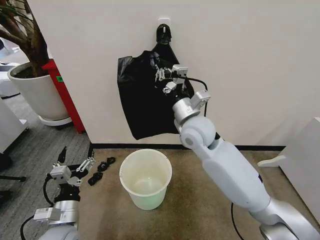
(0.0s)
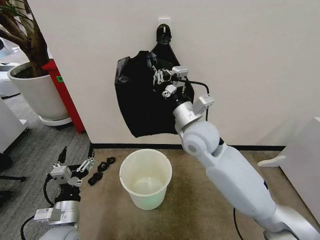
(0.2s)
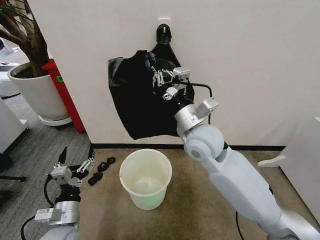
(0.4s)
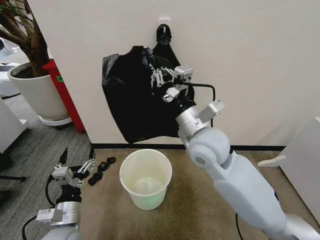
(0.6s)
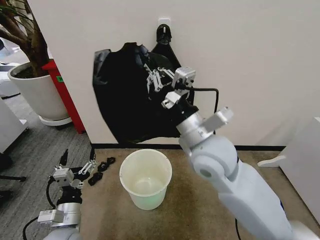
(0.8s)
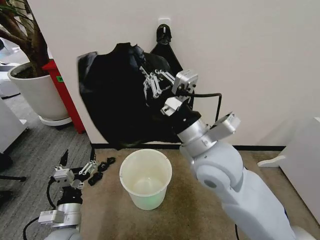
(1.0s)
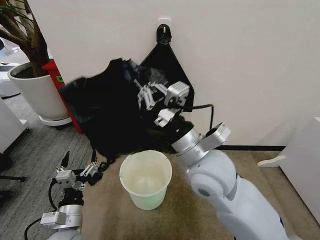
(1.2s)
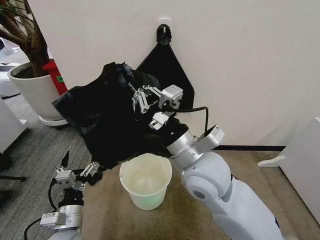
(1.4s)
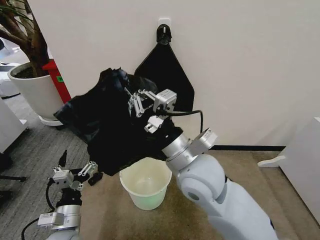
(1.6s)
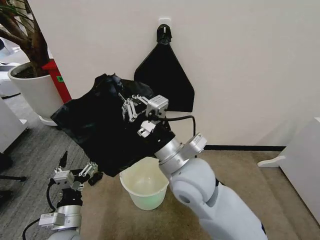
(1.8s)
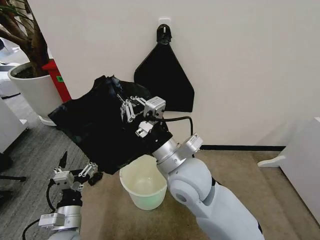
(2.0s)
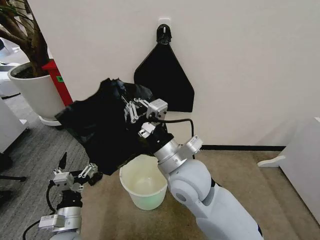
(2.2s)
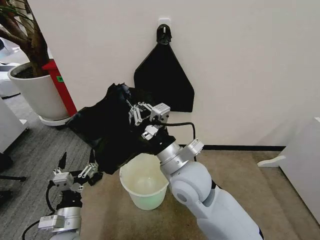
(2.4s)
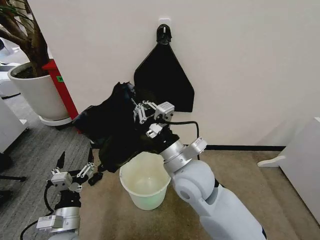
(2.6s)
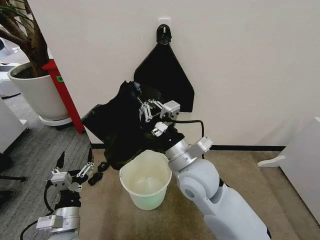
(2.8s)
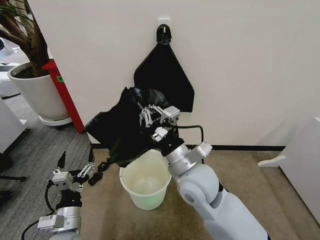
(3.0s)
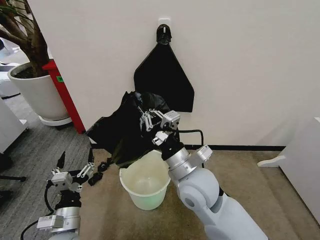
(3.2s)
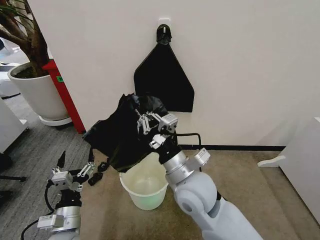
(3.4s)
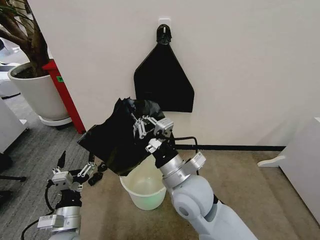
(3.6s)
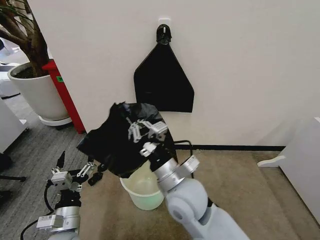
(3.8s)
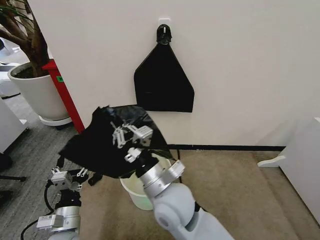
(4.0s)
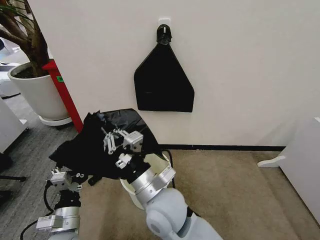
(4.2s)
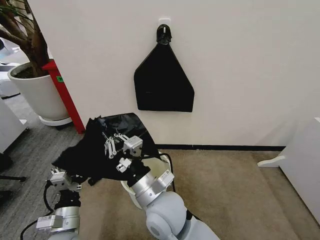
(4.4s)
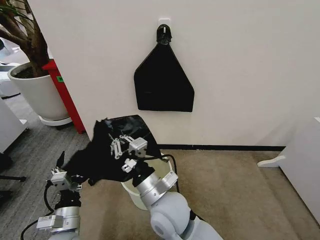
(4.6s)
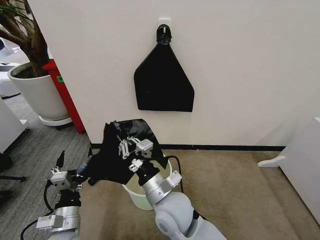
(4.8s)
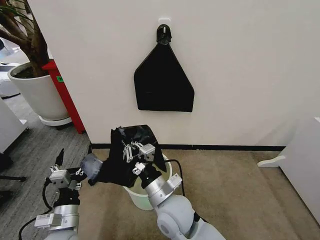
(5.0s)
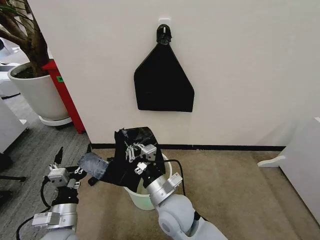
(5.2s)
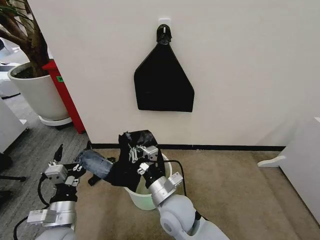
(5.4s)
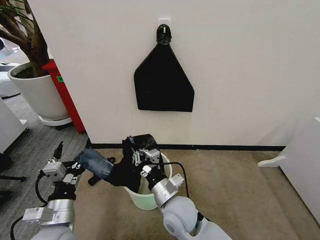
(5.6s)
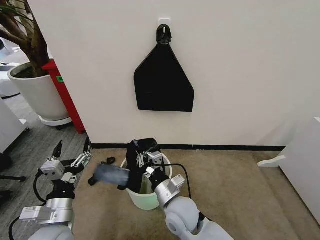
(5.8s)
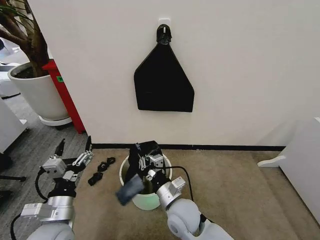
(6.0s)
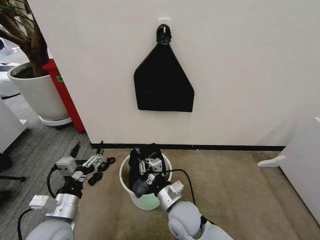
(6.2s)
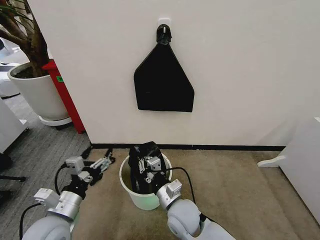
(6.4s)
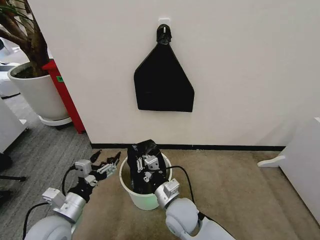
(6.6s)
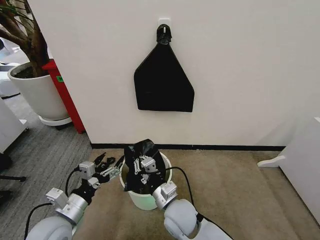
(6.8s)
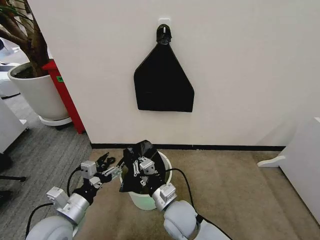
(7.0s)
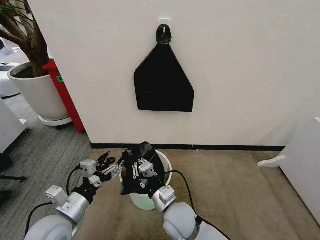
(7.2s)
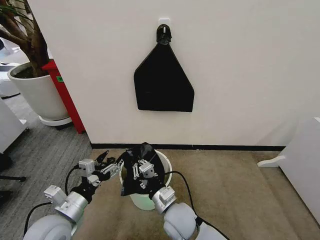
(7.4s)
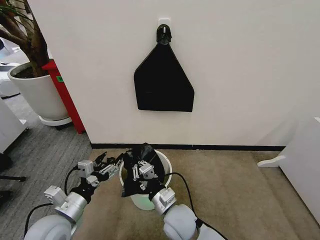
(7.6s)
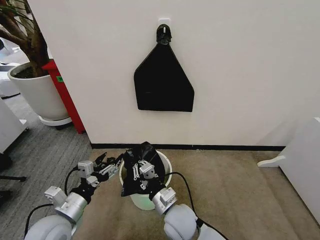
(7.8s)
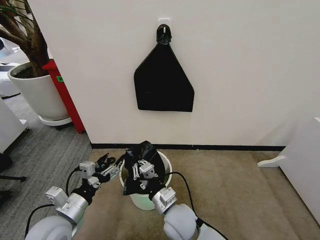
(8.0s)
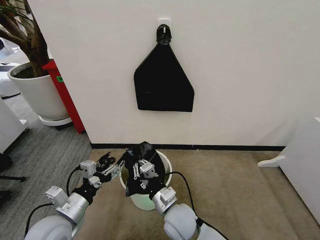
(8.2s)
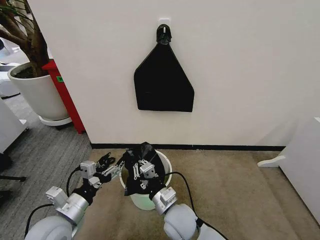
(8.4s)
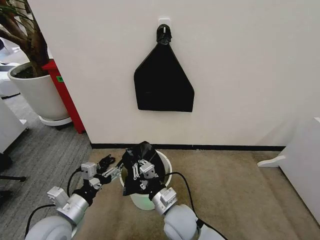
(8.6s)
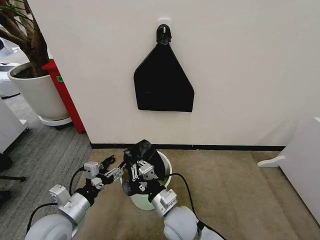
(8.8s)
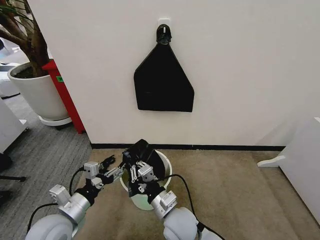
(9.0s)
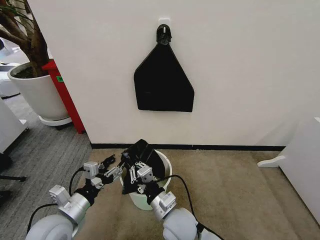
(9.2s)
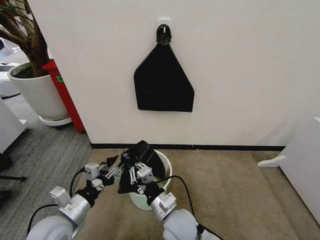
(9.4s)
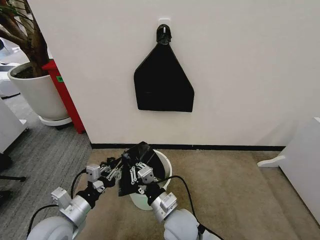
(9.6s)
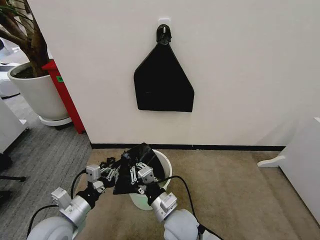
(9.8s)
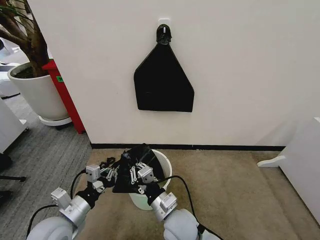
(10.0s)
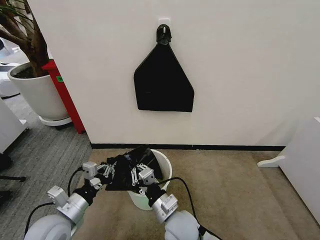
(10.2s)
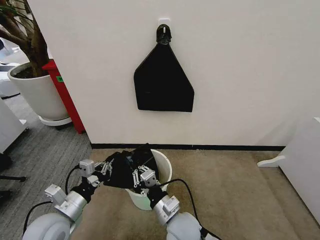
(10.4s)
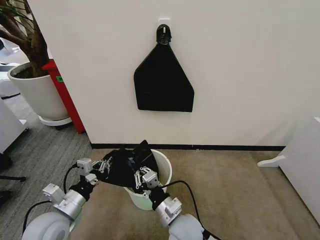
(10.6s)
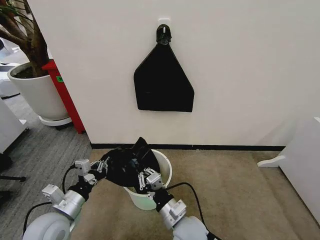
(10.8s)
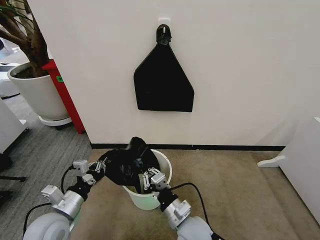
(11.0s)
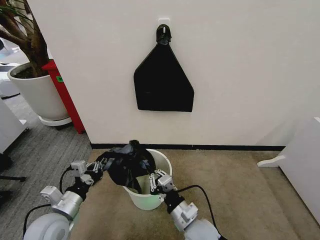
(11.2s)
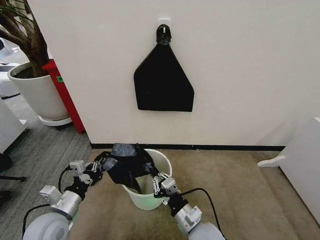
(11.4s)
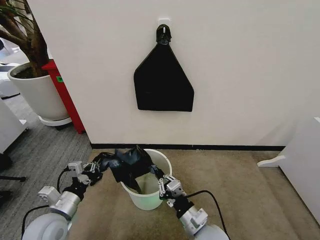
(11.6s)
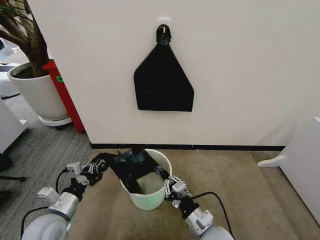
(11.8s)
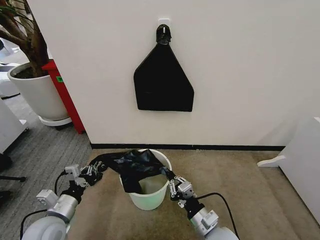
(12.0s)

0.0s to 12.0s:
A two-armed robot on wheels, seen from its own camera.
Task of the whole recording: Place the garbage bag over the trash bin.
0.0s to 1.6s: The right gripper heads backward, covering roughly 15 cm.
1.6s to 3.0s: The right gripper goes roughly 5 cm downward.
3.0s to 4.4s: The right gripper is displaced to the left and backward by about 10 cm.
4.4s to 6.0s: The left gripper is displaced upward by approximately 5 cm. Meanwhile the right gripper is displaced downward and to the right by about 10 cm.
7.6s to 9.0s: The grippers make only small movements.
9.0s to 10.4s: The left gripper closes its fingers.
10.4s to 12.0s: The right gripper goes roughly 10 cm to the right.

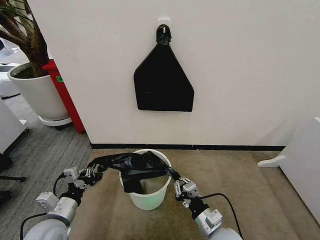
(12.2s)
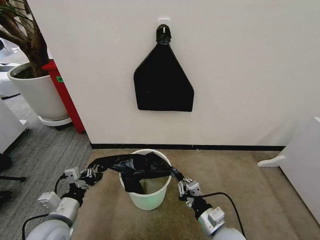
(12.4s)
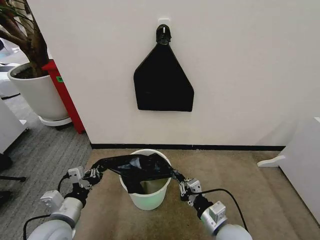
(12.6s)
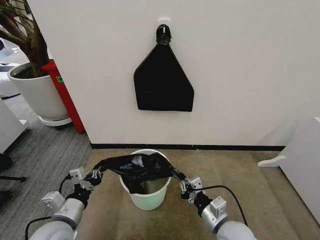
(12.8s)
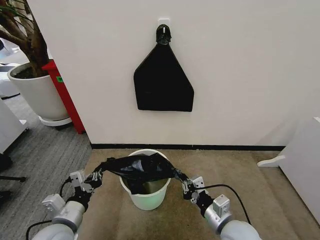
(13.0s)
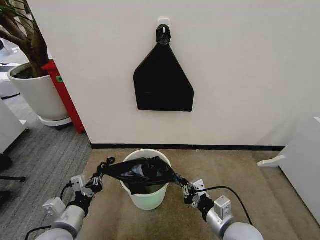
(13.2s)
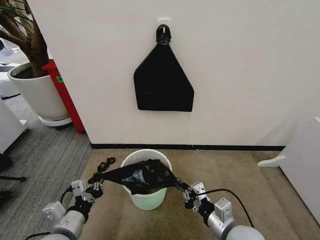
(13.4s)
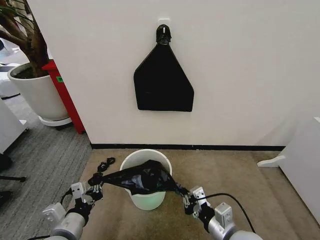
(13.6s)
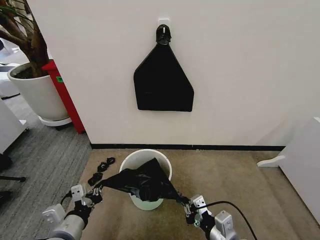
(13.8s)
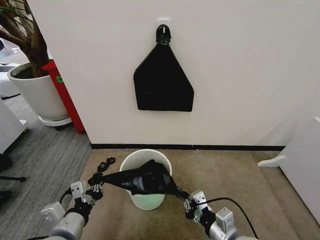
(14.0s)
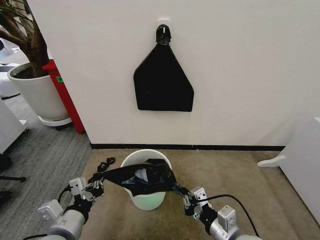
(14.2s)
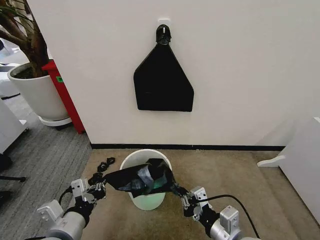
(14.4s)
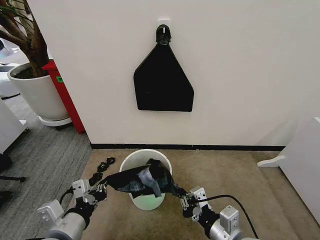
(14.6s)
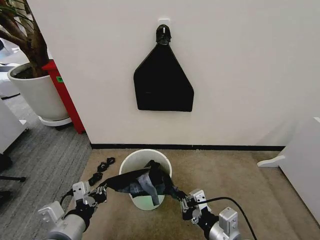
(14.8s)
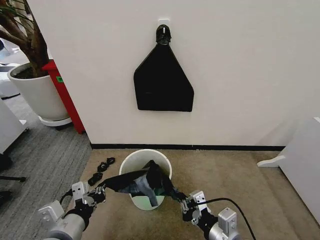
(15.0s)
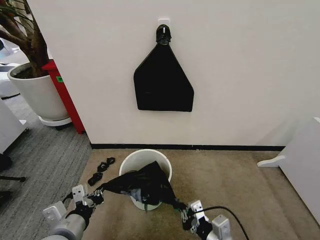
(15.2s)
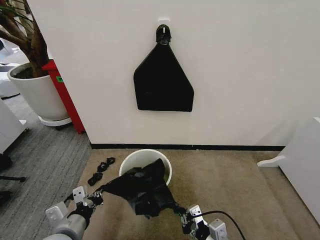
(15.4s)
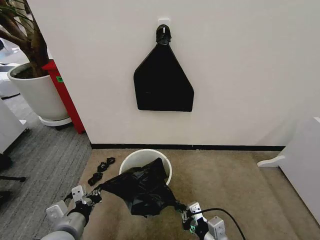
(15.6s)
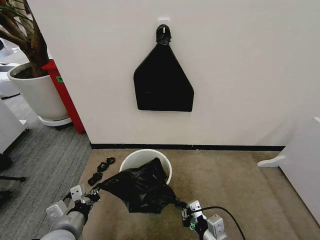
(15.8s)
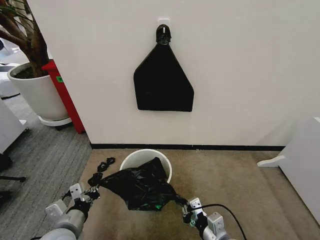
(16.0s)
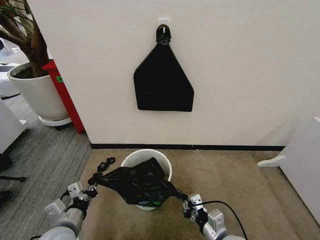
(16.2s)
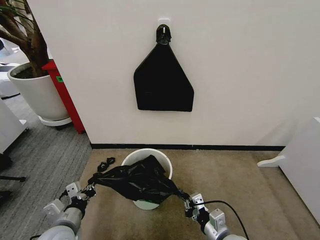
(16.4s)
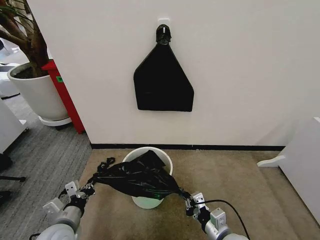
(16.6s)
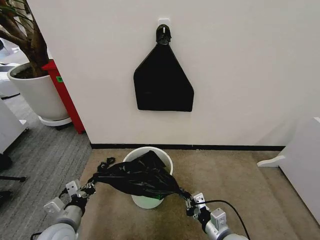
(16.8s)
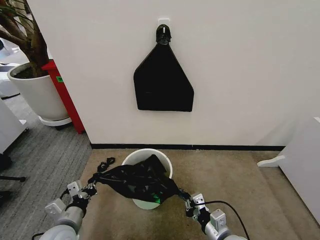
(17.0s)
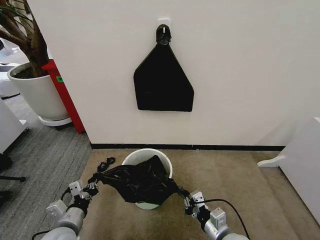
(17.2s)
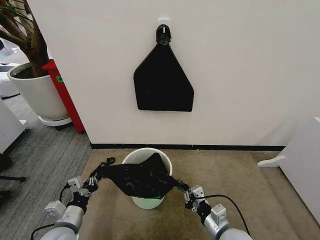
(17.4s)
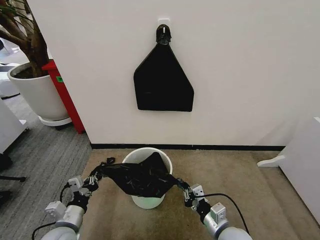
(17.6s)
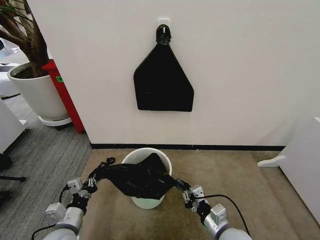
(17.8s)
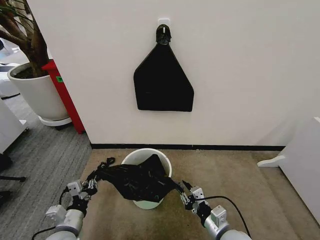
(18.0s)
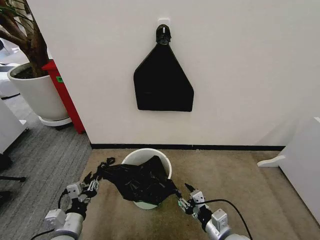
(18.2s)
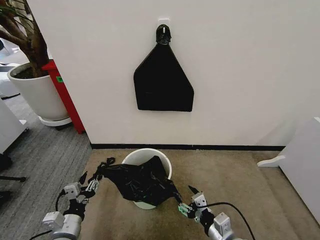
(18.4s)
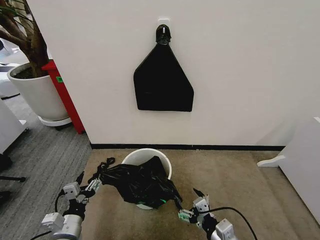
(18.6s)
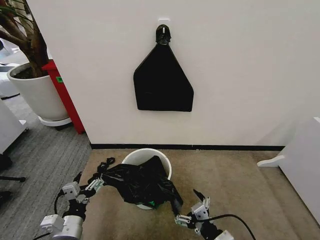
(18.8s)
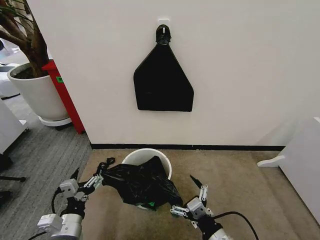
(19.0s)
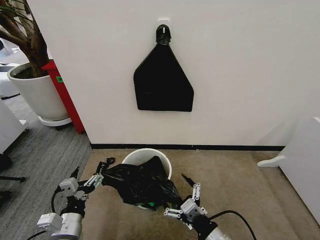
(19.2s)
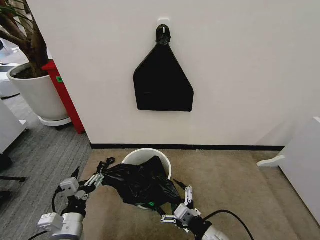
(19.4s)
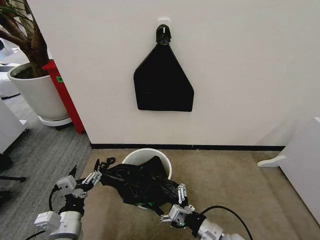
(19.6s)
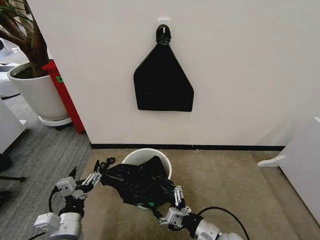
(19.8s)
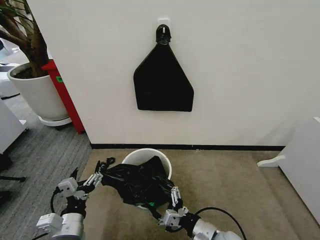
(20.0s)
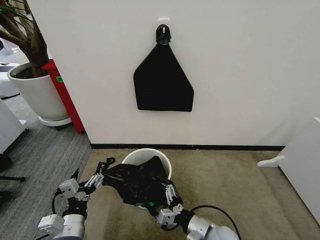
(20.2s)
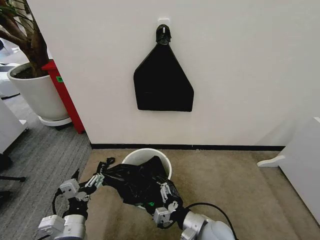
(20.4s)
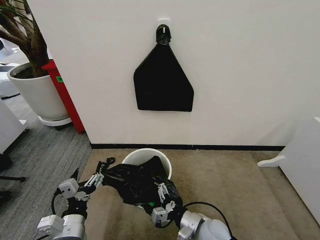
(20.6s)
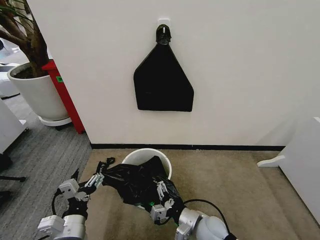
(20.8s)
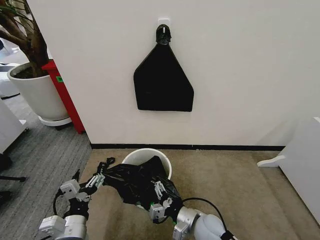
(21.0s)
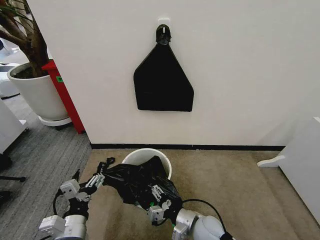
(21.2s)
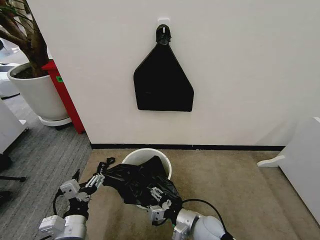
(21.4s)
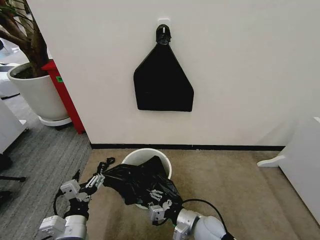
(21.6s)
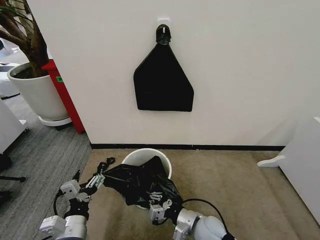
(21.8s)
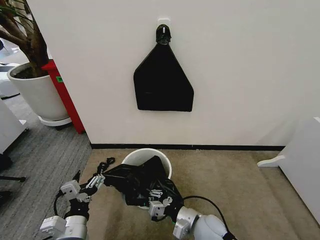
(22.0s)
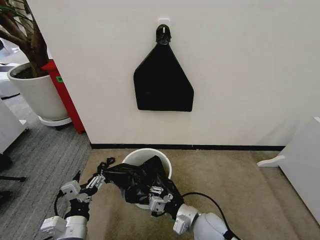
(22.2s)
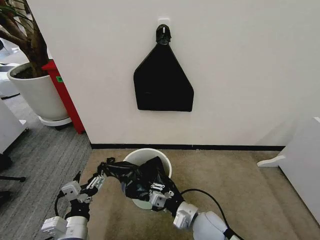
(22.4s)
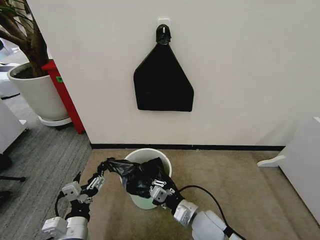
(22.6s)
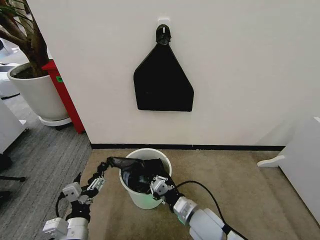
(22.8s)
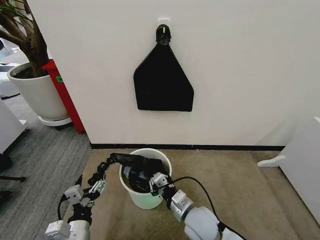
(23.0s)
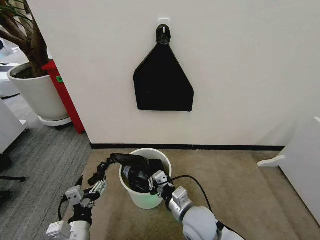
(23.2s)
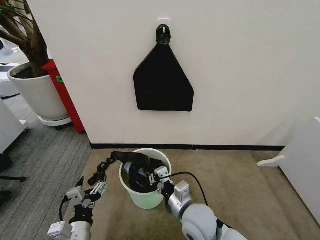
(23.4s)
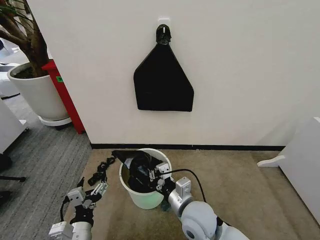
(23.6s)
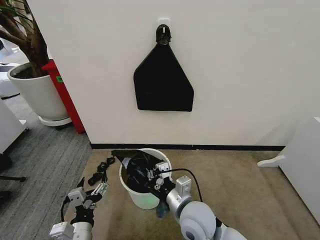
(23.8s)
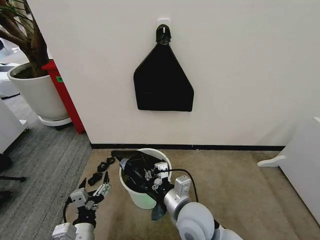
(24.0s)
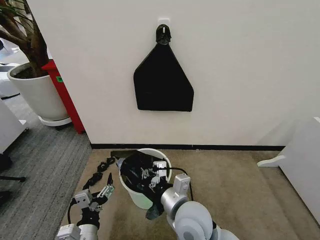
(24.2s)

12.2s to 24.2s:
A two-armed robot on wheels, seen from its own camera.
Task of the whole recording: Place the garbage bag over the trash bin.
12.2s to 13.8s: The left gripper shifts roughly 5 cm to the right and backward. The right gripper is displaced upward by some 5 cm.
15.2s to 16.6s: Both grippers travel together downward, roughly 10 cm.
16.6s to 18.2s: The right gripper opens. Meanwhile the left gripper opens.
18.2s to 19.8s: The left gripper travels upward by approximately 5 cm, and opens. The right gripper opens.
19.8s to 21.2s: The right gripper is displaced forward by some 5 cm.
21.2s to 22.6s: The right gripper closes its fingers.
22.6s to 24.2s: The right gripper goes about 10 cm upward and to the left.
